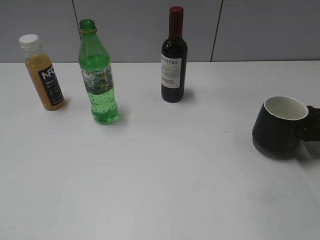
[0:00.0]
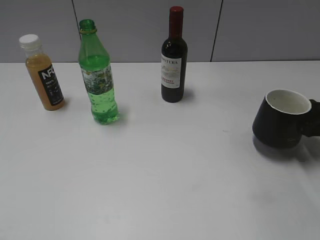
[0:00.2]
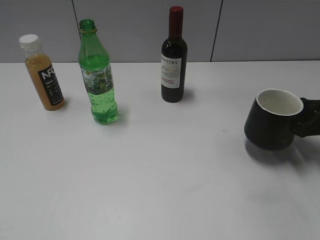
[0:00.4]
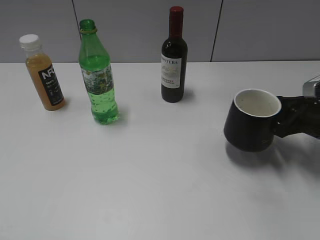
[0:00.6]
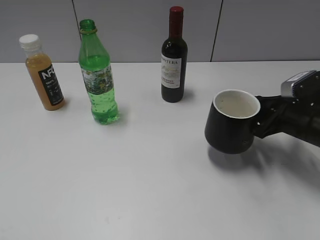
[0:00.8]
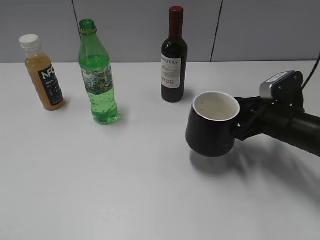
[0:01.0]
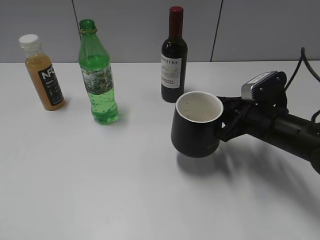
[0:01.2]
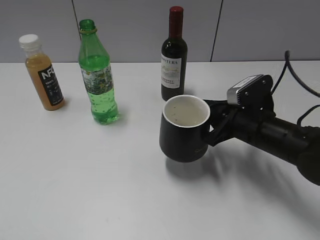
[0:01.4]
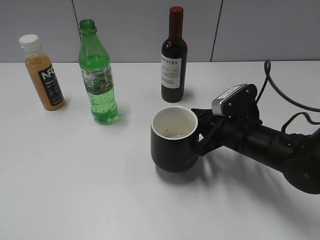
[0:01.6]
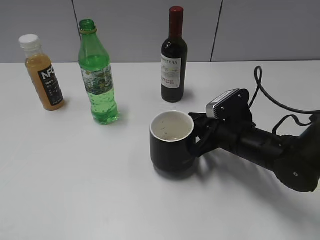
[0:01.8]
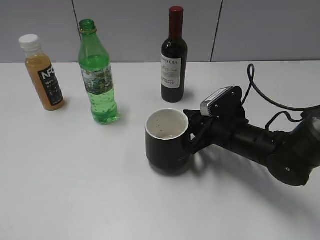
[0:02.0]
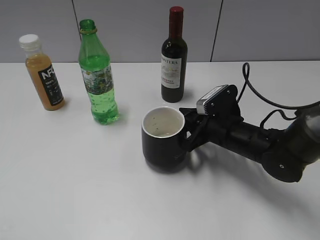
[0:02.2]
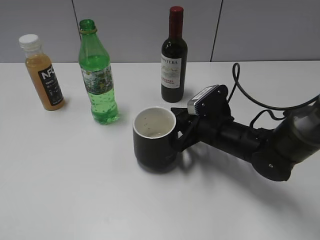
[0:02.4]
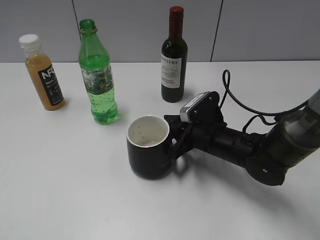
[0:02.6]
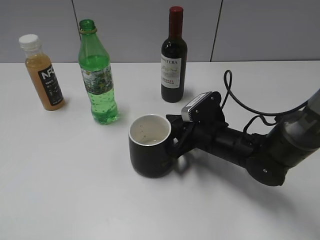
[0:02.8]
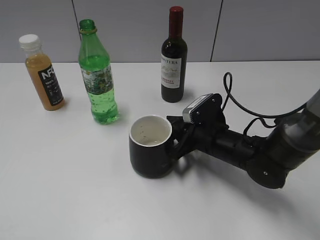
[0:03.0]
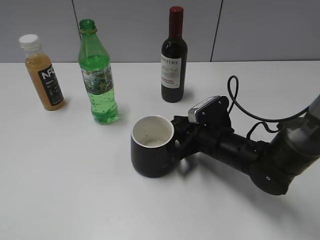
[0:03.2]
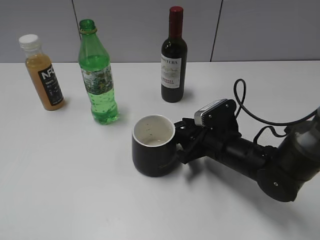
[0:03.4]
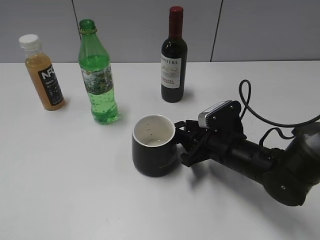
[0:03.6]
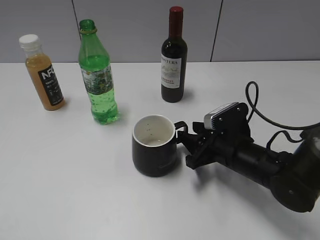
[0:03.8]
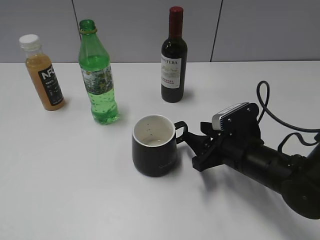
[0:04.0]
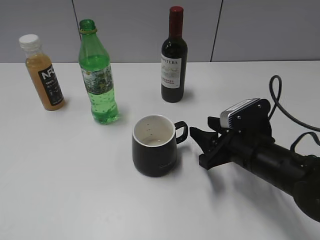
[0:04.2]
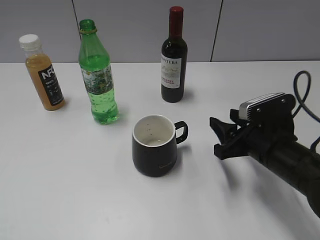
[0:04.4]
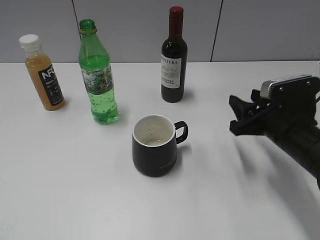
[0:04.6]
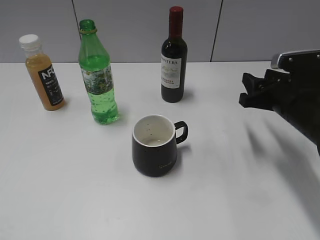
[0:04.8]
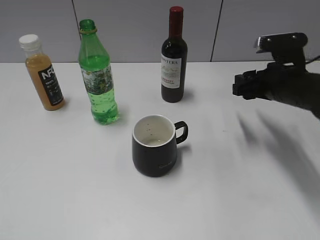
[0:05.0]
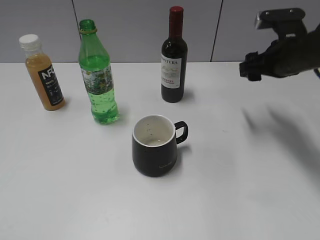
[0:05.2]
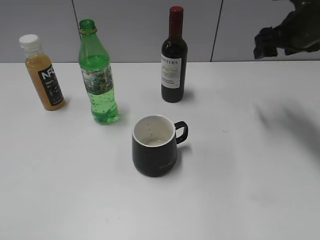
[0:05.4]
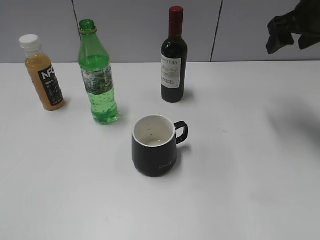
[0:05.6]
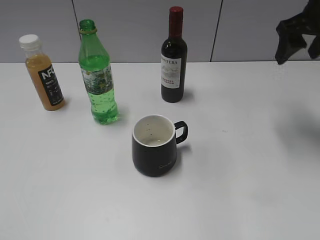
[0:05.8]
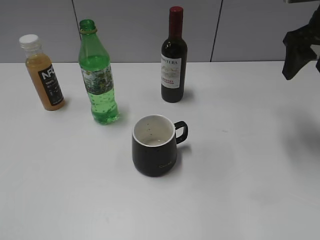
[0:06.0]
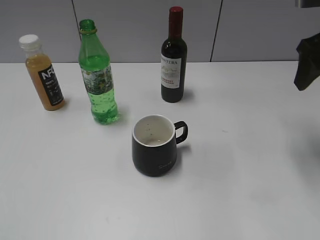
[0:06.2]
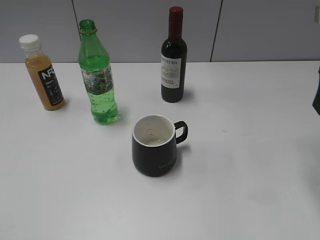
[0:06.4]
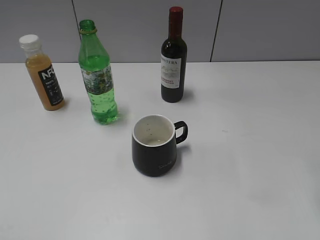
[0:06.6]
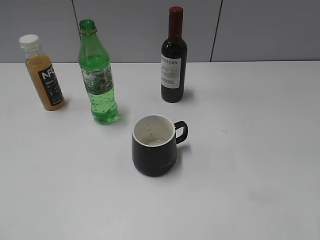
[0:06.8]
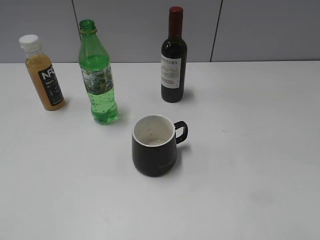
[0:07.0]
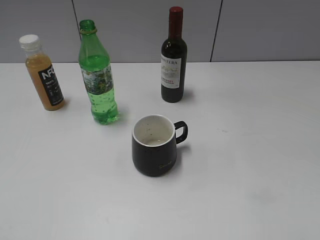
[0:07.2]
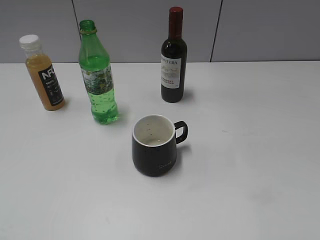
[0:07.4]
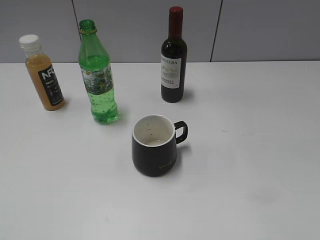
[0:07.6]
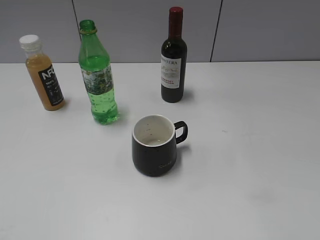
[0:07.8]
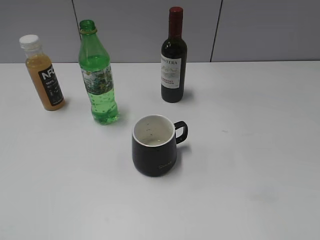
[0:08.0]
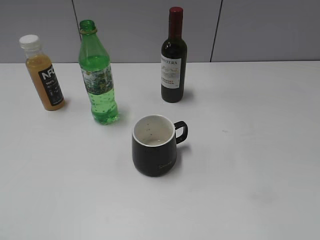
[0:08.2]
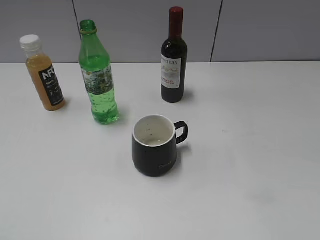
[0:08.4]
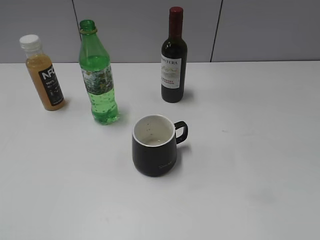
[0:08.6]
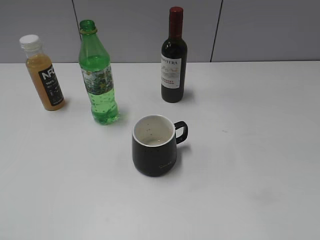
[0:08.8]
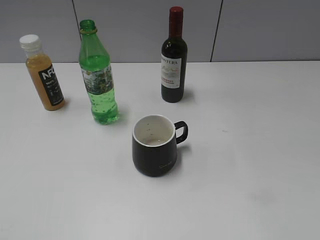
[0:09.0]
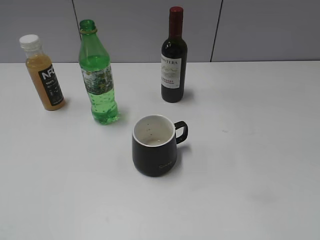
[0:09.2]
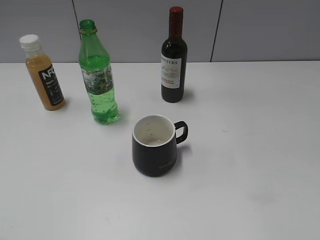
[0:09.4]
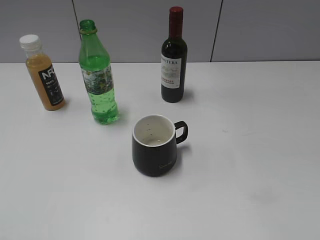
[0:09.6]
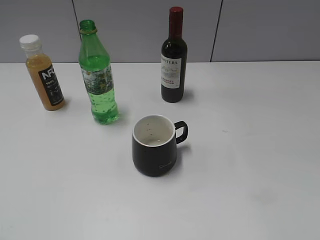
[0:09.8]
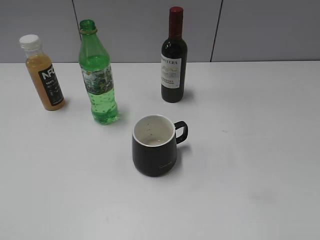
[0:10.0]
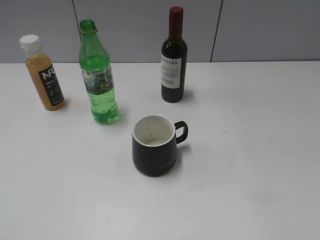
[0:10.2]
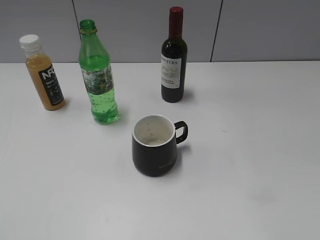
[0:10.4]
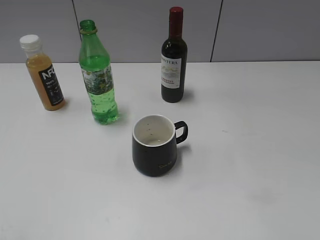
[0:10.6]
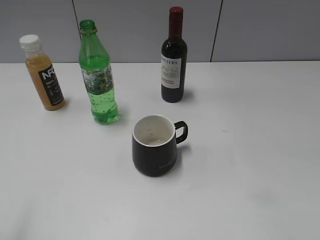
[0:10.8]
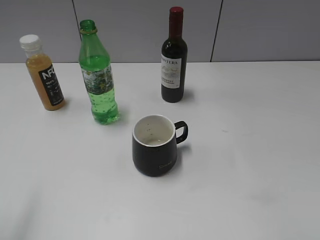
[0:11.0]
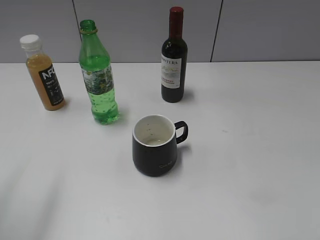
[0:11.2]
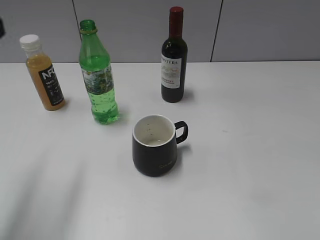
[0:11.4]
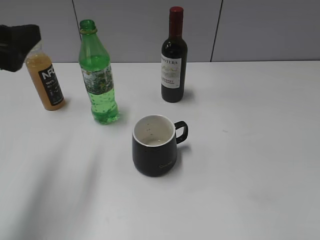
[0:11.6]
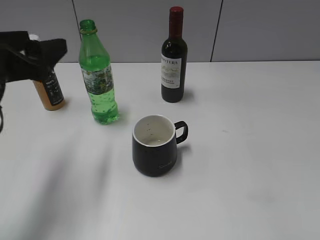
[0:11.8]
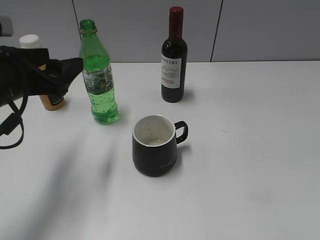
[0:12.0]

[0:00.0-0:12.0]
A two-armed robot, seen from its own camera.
Step, 0:00.0 to 0:03.8: Place the black cup in the center of view with right gripper.
0:00.0 to 0:01.6: The right gripper shifts roughly 20 cm to the left.
0:01.6 to 0:03.0: The right gripper shifts by roughly 5 cm.
0:03.0 to 0:04.4: The right gripper shifts approximately 10 cm to the right, backward and upward, and opens its fingers.
0:04.4 to 0:06.0: The right gripper travels upward, forward and to the right by some 25 cm.
0:06.0 to 0:07.6: The right gripper shifts about 30 cm backward.
0:10.4 to 0:12.0: The left gripper heads forward, covering approximately 25 cm.

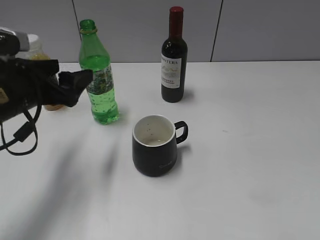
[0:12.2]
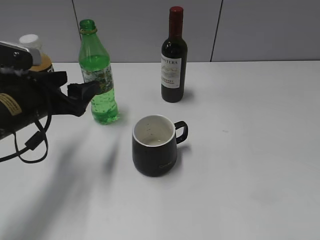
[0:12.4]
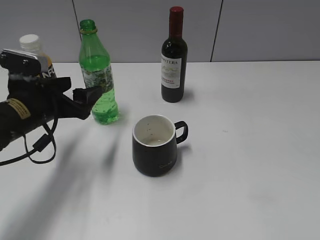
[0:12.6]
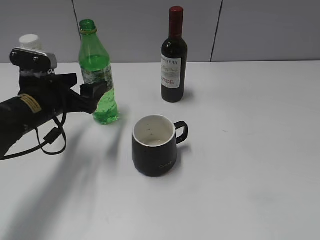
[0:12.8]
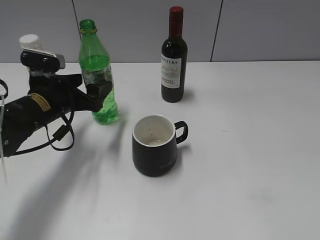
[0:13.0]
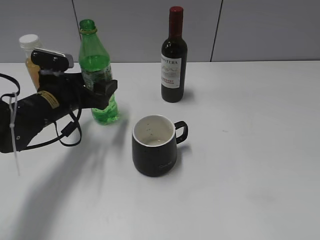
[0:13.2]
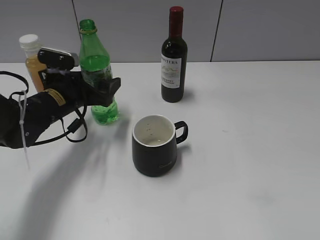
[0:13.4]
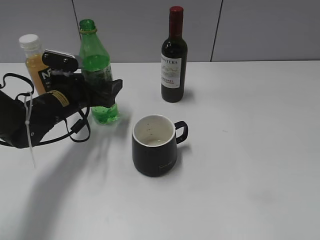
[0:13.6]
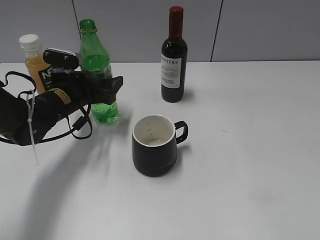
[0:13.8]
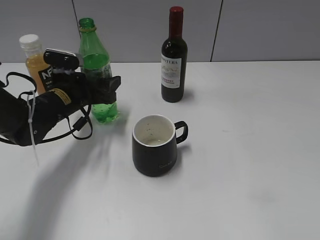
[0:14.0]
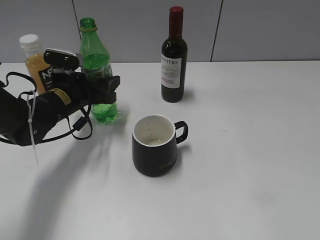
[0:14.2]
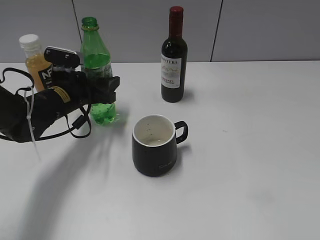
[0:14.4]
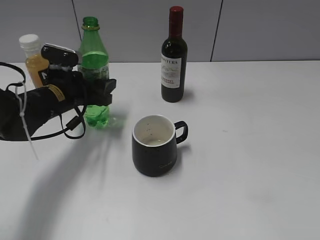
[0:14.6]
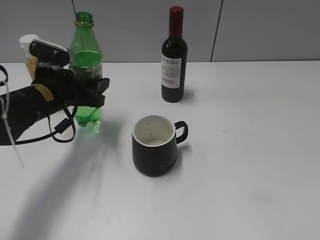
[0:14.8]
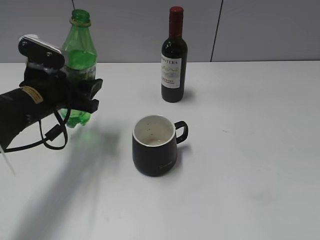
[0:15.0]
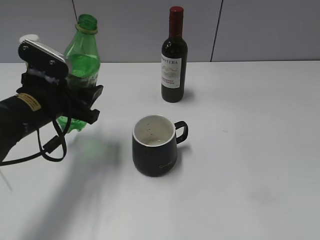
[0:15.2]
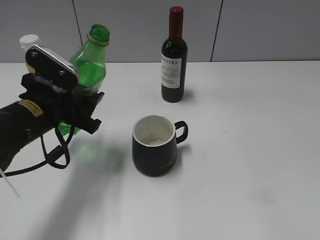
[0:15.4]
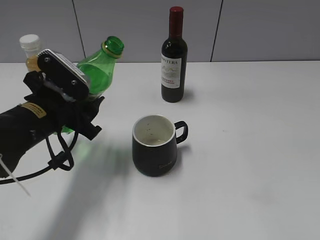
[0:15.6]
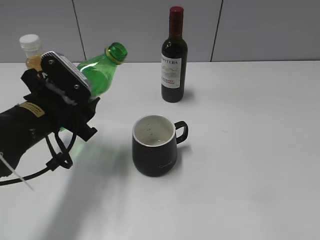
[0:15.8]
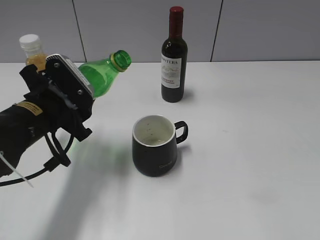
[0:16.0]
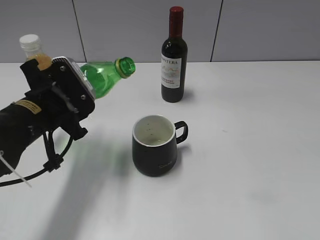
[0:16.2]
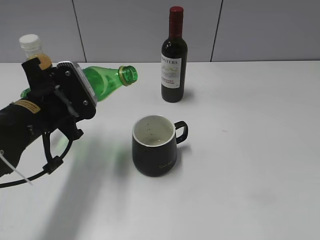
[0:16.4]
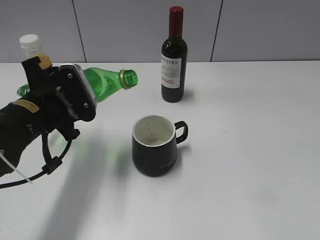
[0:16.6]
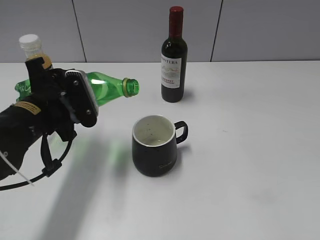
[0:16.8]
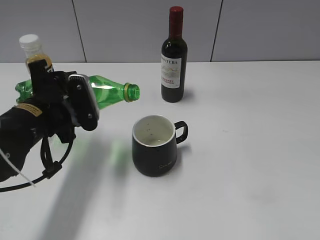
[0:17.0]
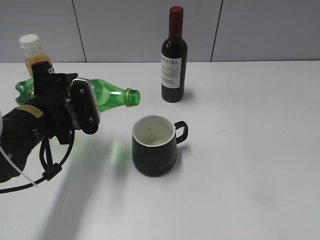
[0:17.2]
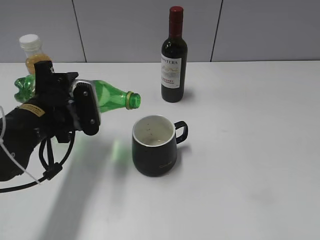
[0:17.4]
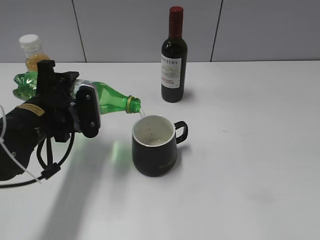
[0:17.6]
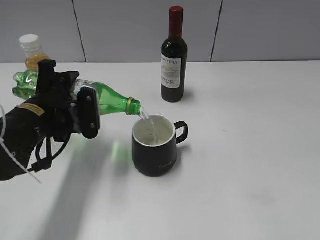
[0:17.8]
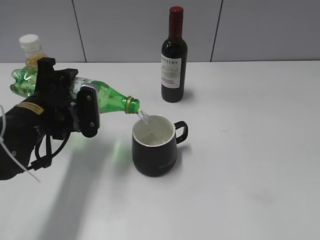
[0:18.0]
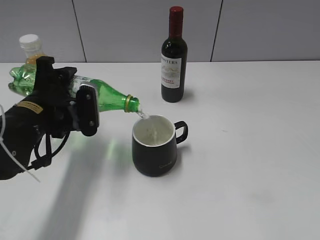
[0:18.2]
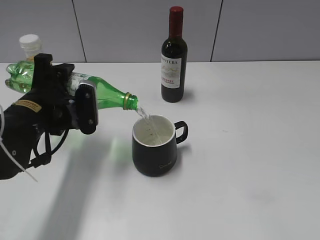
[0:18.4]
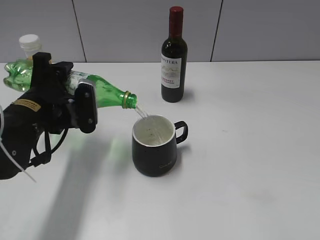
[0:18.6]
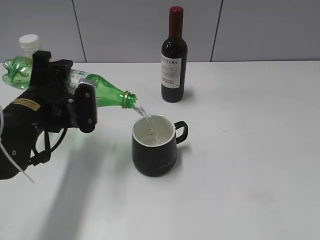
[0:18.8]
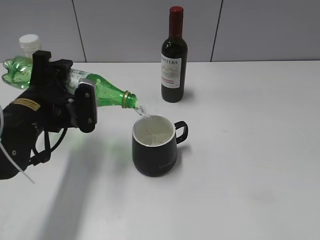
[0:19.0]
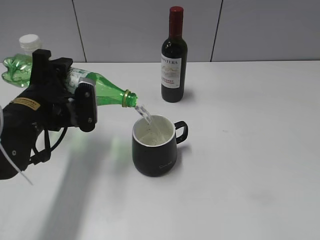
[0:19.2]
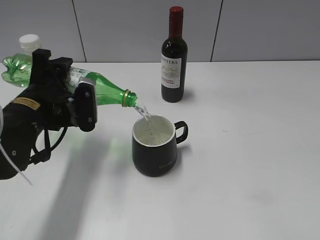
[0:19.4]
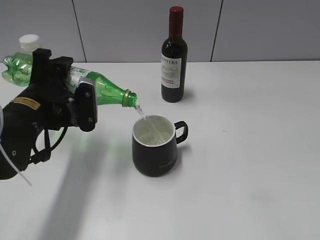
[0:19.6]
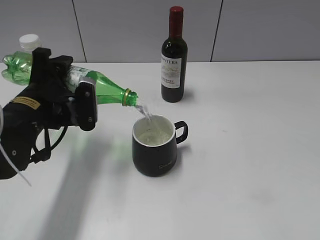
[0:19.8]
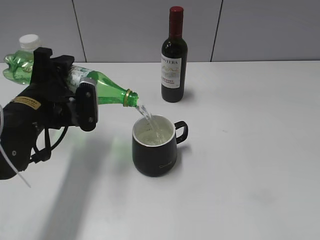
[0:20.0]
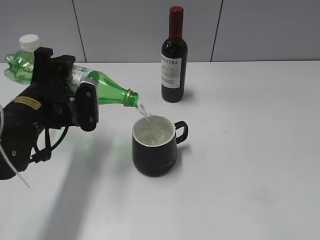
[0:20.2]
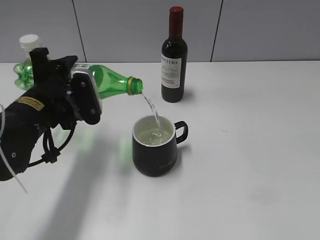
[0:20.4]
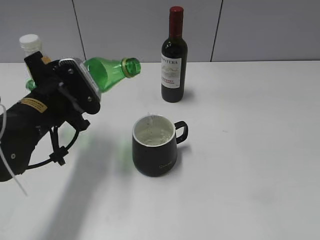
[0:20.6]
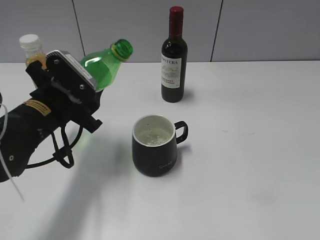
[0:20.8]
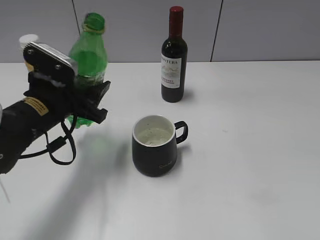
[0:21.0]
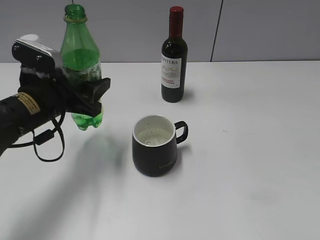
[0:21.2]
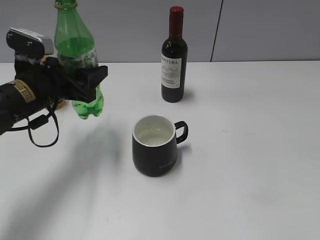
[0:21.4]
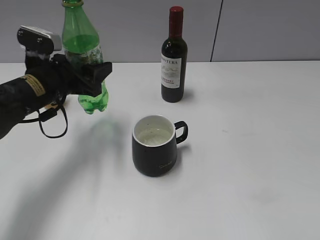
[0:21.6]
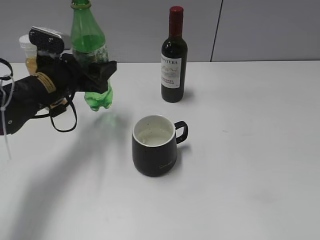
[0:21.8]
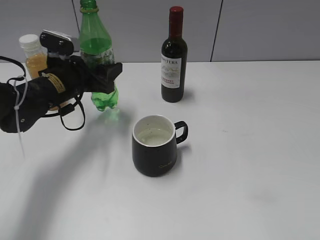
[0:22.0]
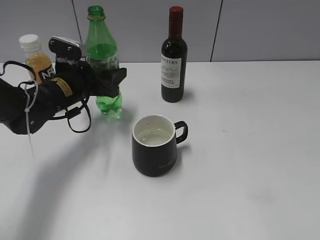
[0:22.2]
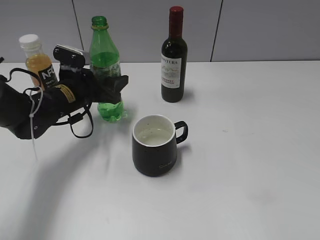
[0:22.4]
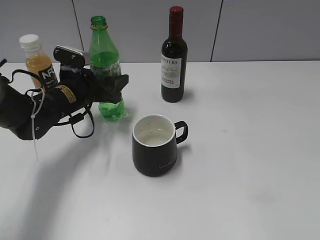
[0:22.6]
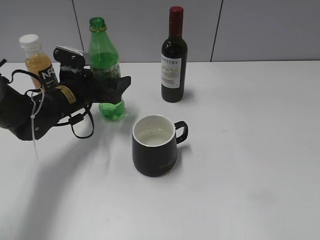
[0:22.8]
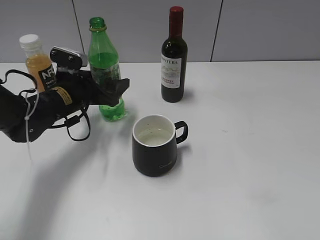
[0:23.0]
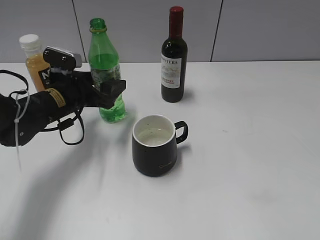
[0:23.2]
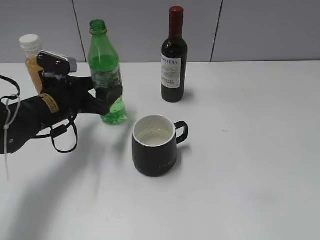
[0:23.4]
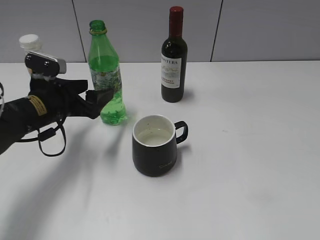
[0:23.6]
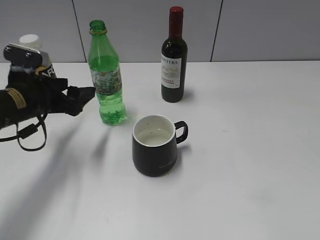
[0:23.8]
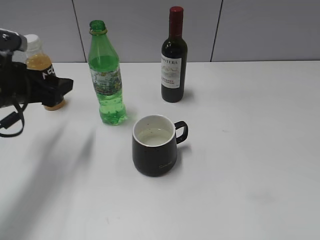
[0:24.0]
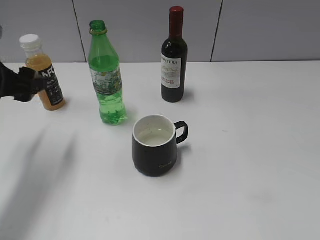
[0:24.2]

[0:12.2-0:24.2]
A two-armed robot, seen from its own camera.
Step, 0:12.2 to 0:14.4: Grasp the bottle with sprite with left gripper.
Step, 0:14.6 to 0:20.6: Pour the sprite from bottle to cup with left gripper.
Step, 0:20.8 to 0:23.4: Place the sprite bottle on the table with left gripper.
0:12.2 to 0:13.8: The left gripper goes some 15 cm forward and downward.
0:13.8 to 0:15.2: The left gripper goes about 10 cm backward and upward, and closes.
0:18.2 to 0:19.8: The grippers make only small movements.
0:21.2 to 0:22.6: The left gripper moves forward and downward, about 10 cm.
0:22.6 to 0:24.2: The left gripper moves upward, backward and to the left, roughly 20 cm, and opens its fingers.
